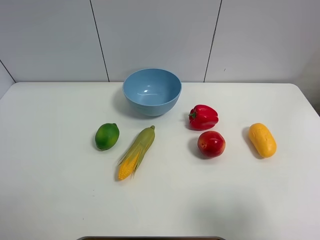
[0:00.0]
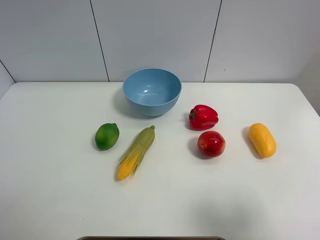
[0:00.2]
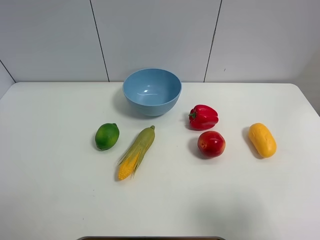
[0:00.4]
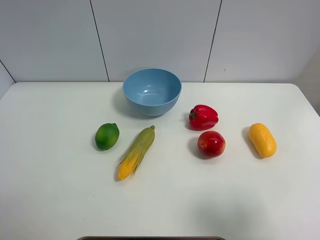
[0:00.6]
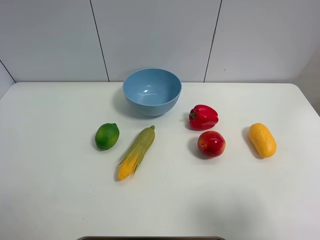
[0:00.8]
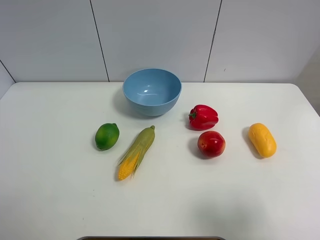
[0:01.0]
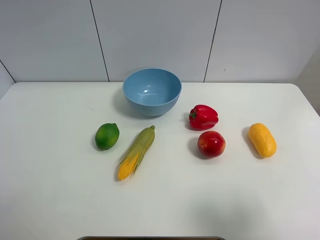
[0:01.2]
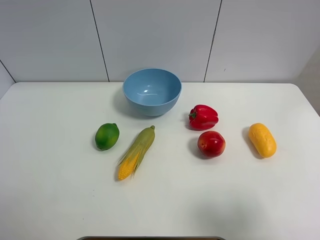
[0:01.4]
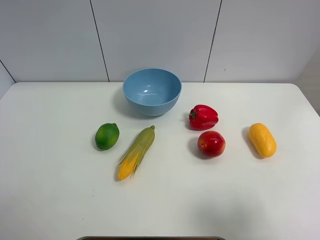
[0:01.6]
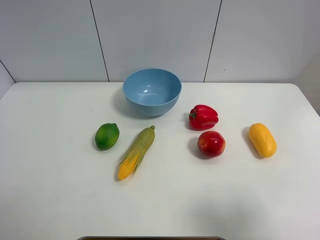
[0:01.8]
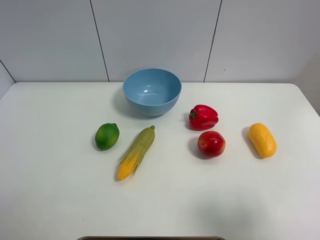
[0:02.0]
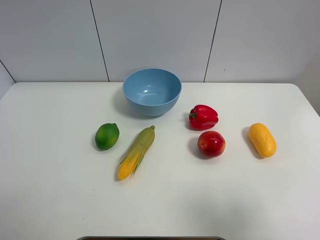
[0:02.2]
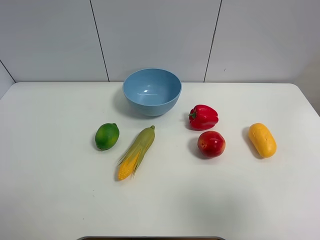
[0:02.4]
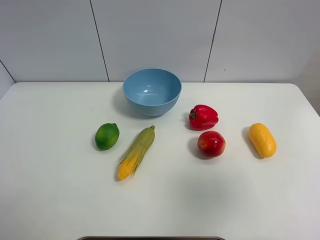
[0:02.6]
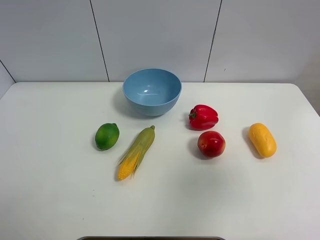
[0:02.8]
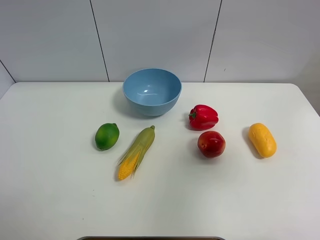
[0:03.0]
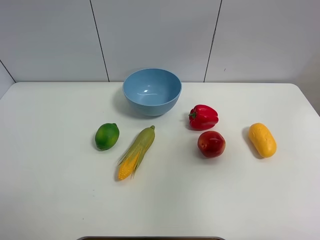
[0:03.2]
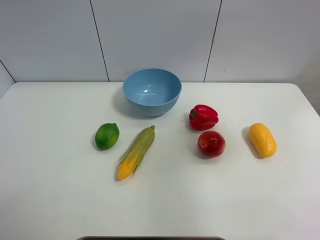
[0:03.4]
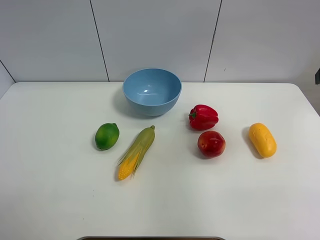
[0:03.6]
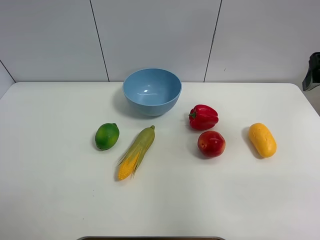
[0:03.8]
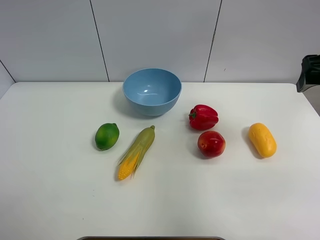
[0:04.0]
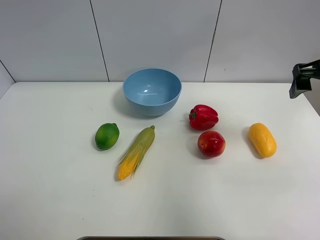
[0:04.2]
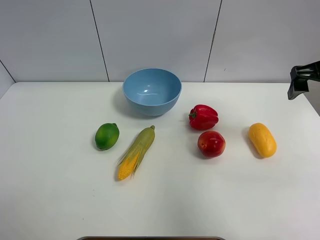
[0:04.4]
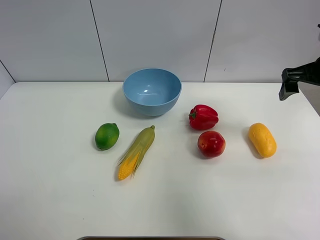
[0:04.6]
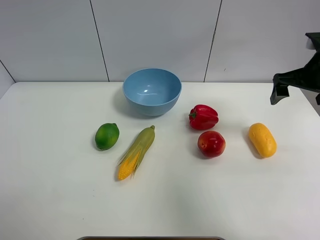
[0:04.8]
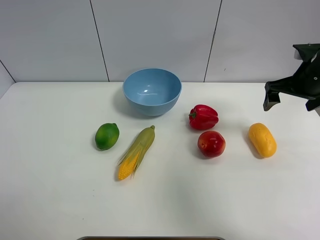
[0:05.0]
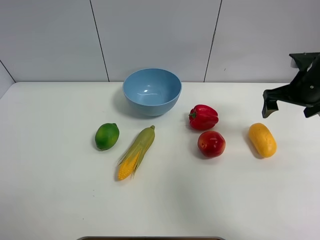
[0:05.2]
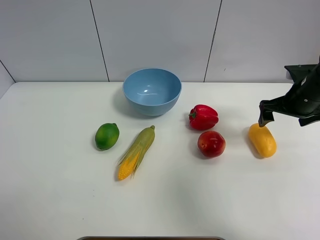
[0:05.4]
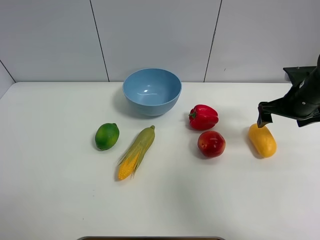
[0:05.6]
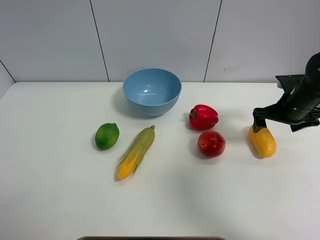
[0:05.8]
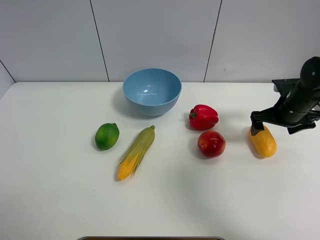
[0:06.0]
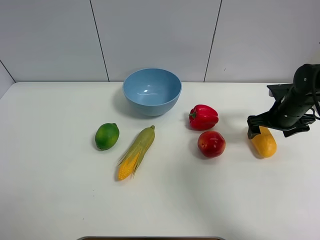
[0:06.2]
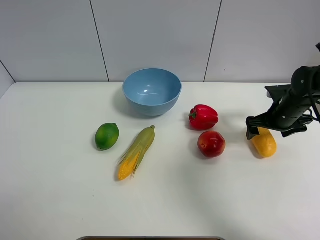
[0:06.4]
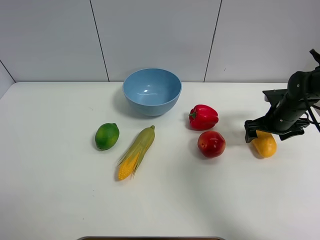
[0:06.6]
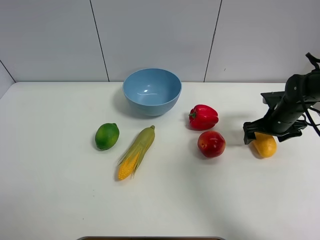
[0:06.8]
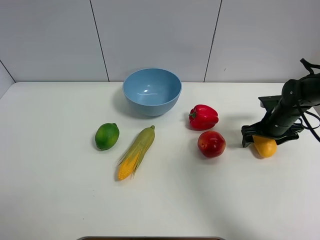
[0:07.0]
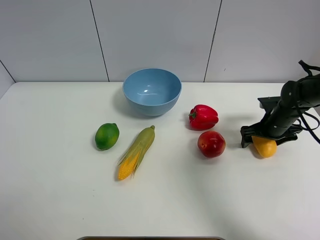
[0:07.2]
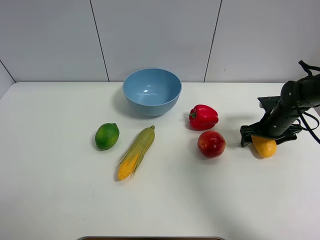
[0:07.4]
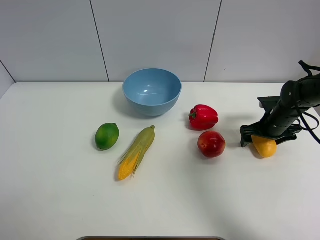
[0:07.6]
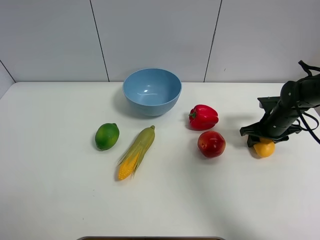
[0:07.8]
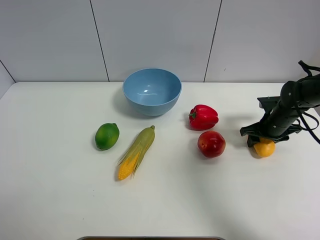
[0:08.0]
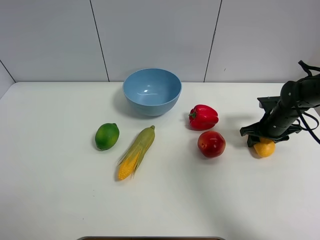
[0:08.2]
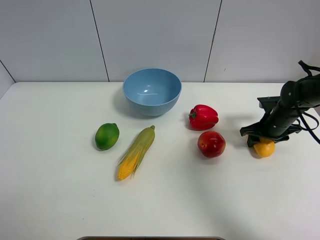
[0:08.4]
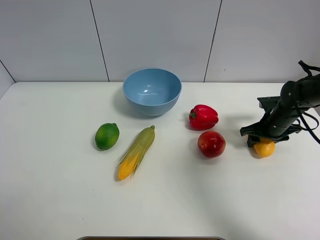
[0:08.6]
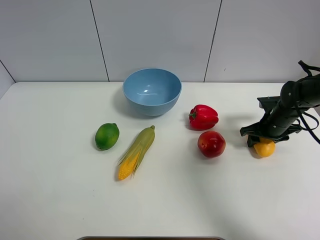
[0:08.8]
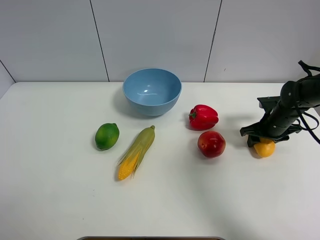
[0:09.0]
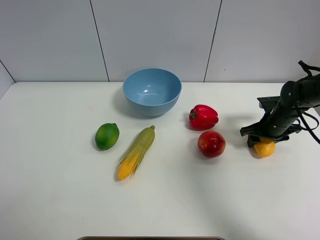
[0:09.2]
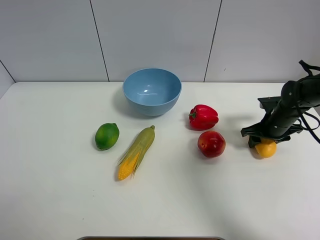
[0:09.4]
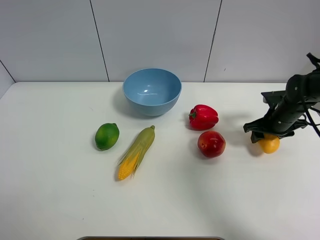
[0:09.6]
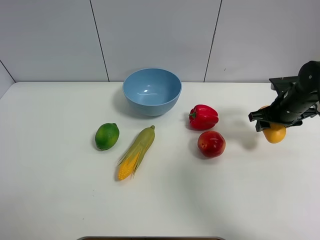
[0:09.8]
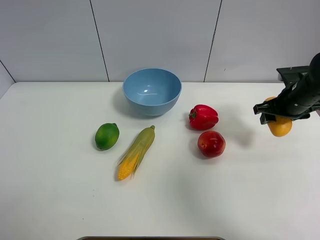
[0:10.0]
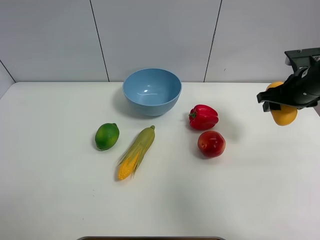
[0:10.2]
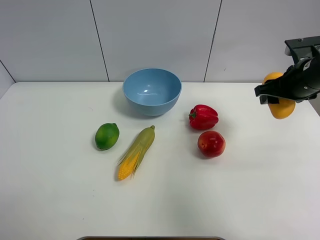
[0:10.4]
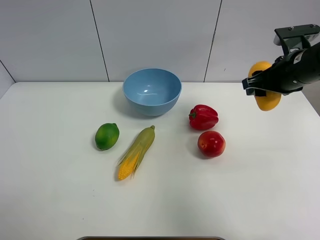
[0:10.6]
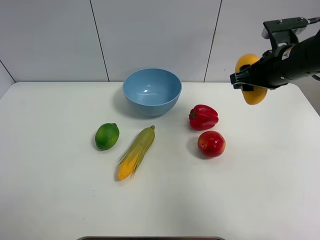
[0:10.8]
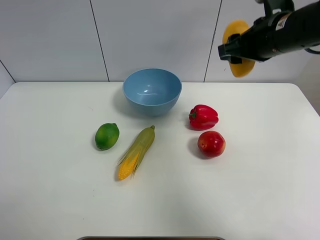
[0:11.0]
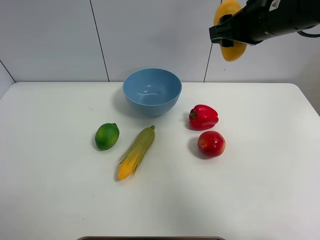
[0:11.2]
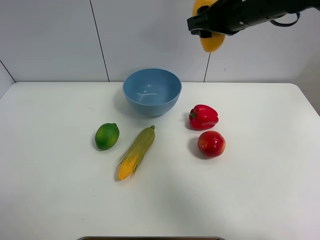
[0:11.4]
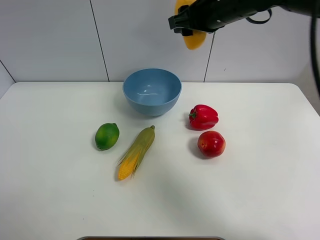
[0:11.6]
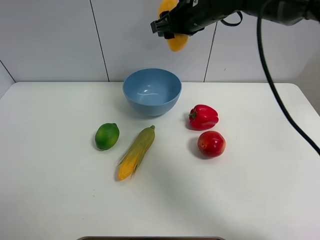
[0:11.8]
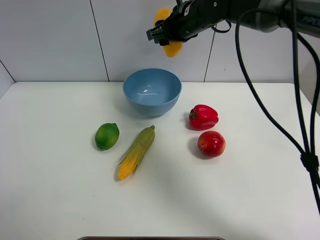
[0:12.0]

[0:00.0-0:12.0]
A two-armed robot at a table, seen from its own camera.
Task of the whole recording: Put the three fruits on the table into a bowl.
Step, 0:00.0 to 0:07.8: Grasp the mango with right gripper.
0:00.0 to 0:01.6: Both grippers stay put.
0:01.6 to 0:03.0: The right gripper heads forward and upward, covering approximately 20 cm.
0:03.0 to 0:04.4: The right gripper travels forward and downward by some 20 cm.
0:04.4 to 0:06.0: The right gripper is displaced downward by approximately 15 cm.
0:06.0 to 0:07.6: The right gripper travels downward by about 5 cm.
0:07.6 to 0:09.0: The right gripper closes.
0:09.0 to 0:10.4: The right gripper goes approximately 15 cm upward.
0:10.4 to 0:12.0: The right gripper travels to the left and forward by about 25 cm.

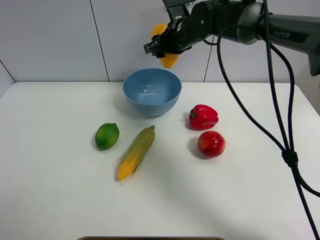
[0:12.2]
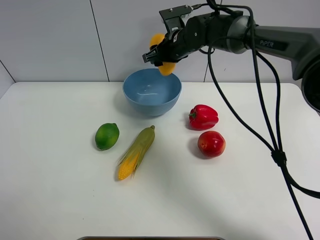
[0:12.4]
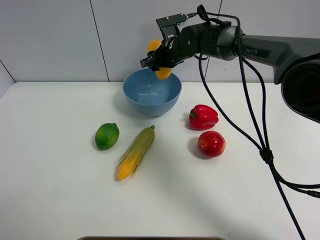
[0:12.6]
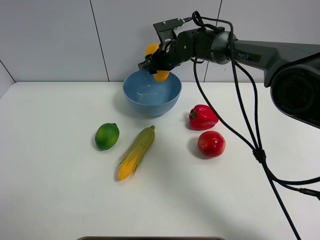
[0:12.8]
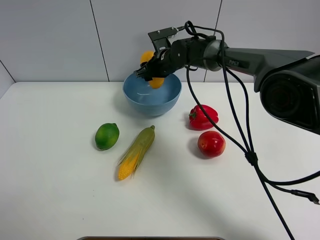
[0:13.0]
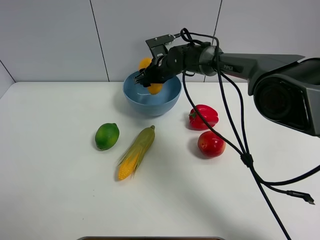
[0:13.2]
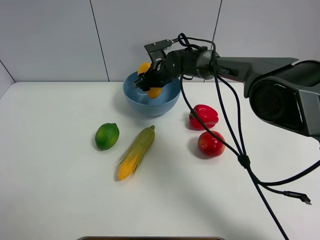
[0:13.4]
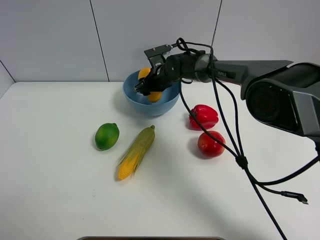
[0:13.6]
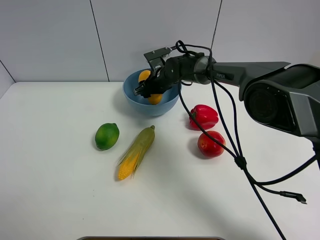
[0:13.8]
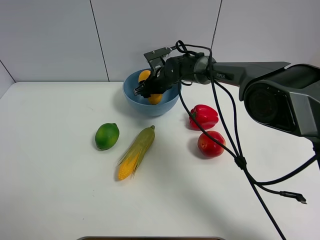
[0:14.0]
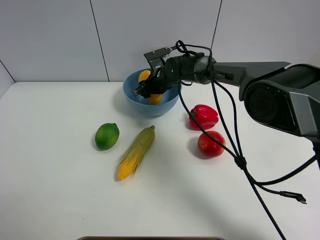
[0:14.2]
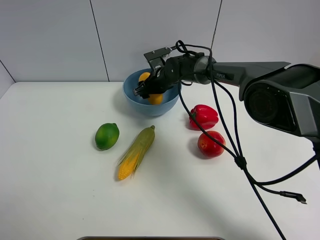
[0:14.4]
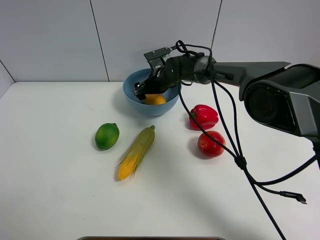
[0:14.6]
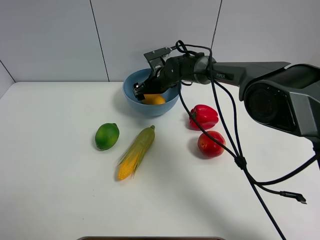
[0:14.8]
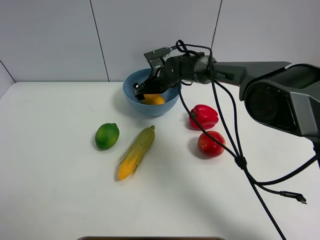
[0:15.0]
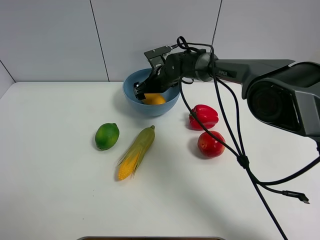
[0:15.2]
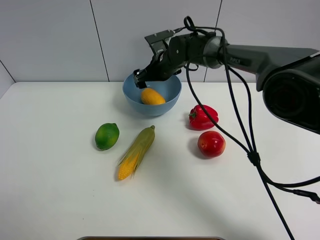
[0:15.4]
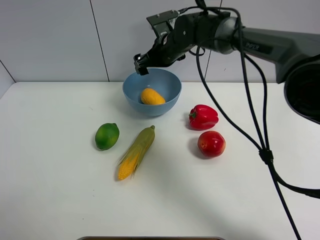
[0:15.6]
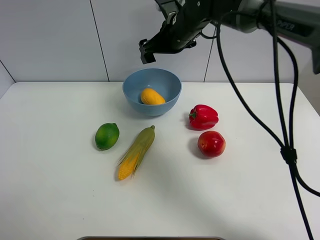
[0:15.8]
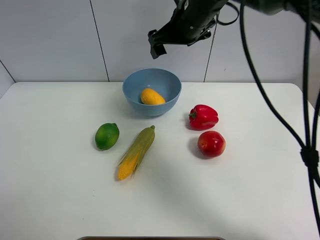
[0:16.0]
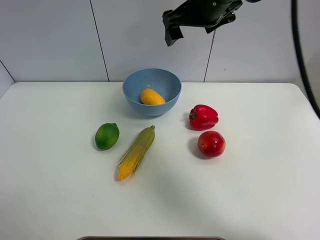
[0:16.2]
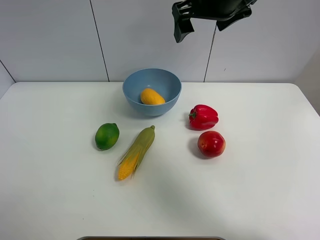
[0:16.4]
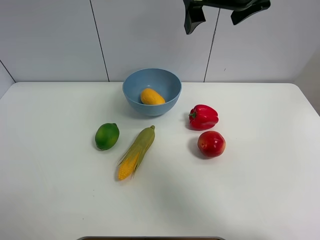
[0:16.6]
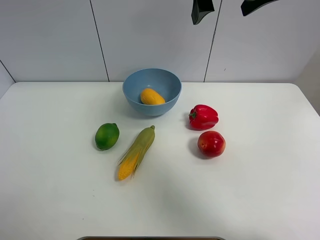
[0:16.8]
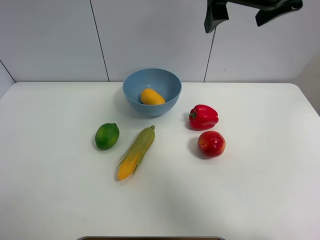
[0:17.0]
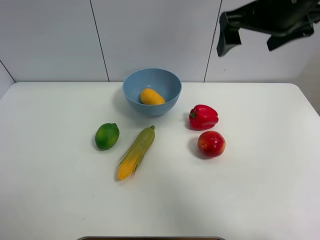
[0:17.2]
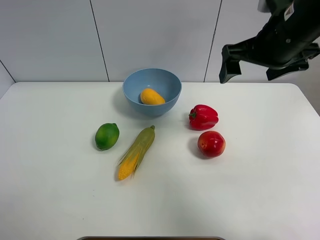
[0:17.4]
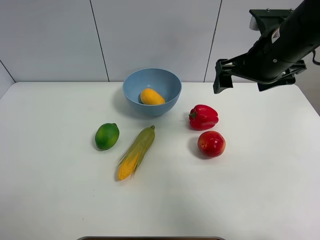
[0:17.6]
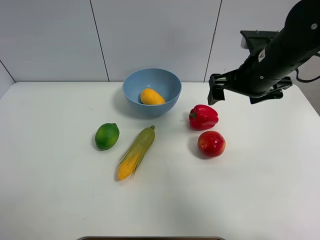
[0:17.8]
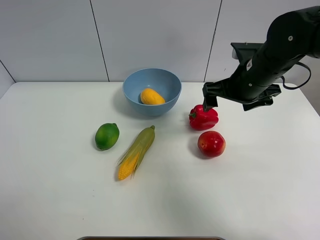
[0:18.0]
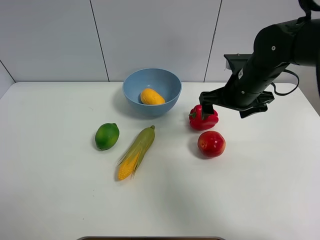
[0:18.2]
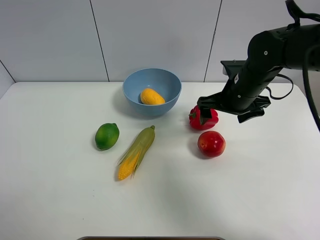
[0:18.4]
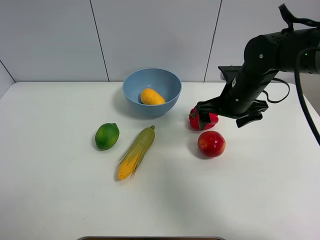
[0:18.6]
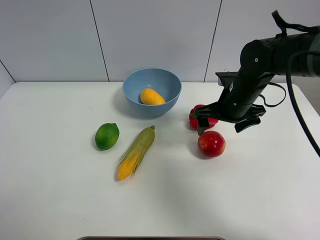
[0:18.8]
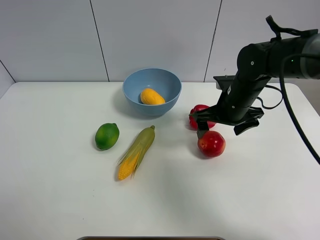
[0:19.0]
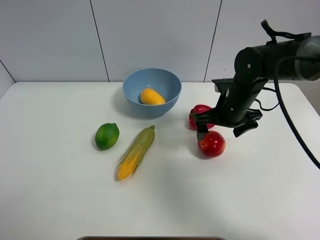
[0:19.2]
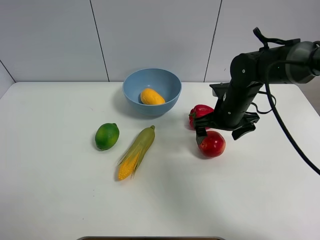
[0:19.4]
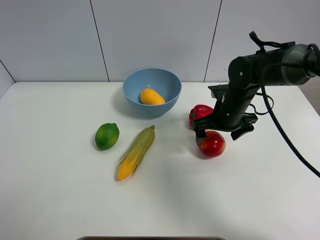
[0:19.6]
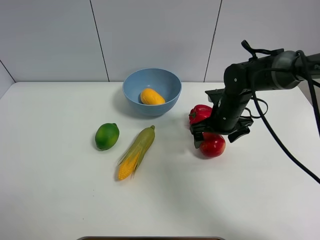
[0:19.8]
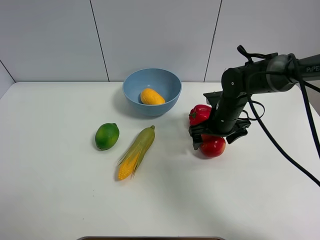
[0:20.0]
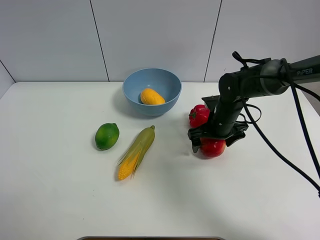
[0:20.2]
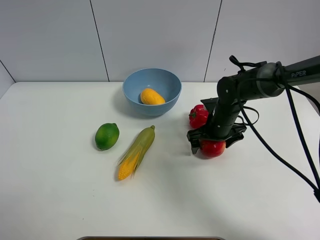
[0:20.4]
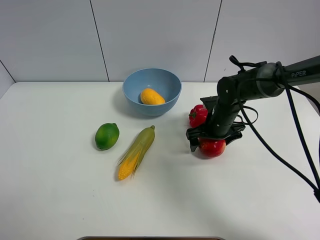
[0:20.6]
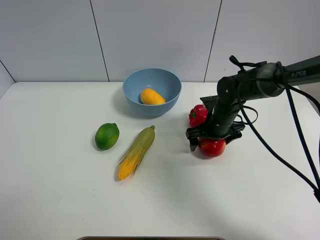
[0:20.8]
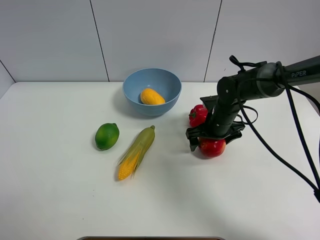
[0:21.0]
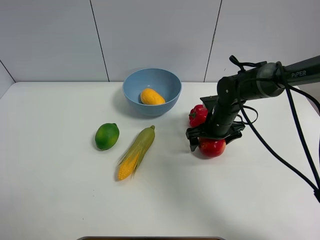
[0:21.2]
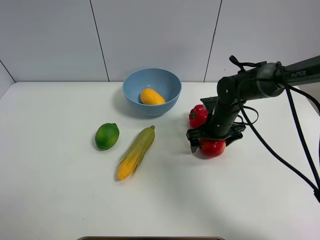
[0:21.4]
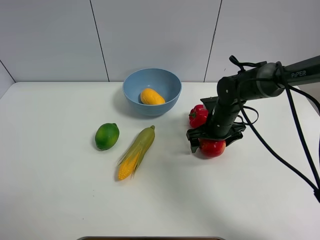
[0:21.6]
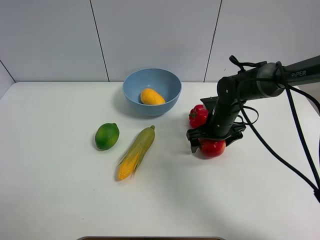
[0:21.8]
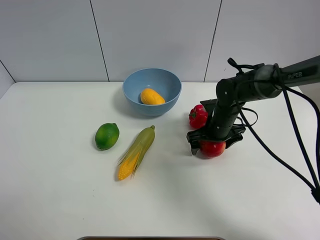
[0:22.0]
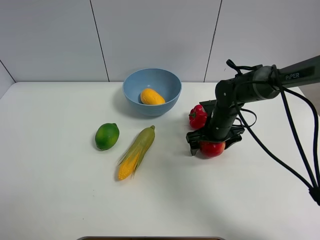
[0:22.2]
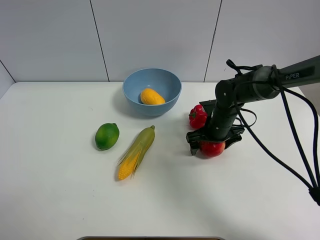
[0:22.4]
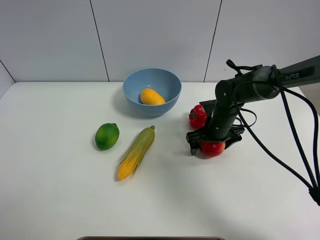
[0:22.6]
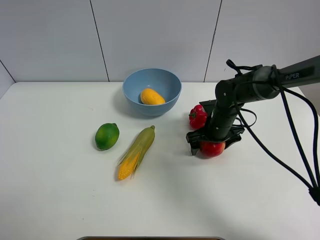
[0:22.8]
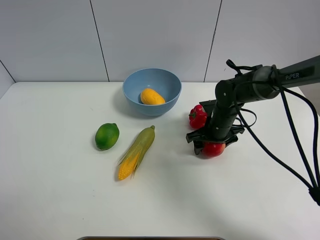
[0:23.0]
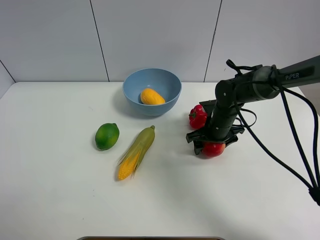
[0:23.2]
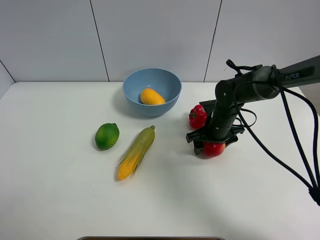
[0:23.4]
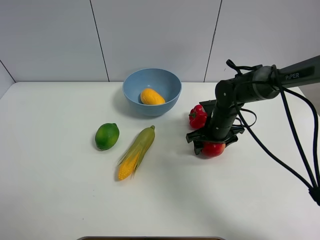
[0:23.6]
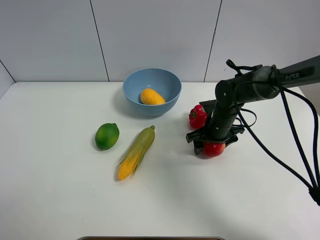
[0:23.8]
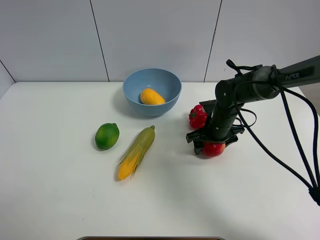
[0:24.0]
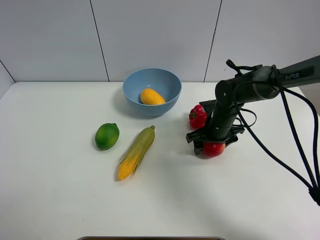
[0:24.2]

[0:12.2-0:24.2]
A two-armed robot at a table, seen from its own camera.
Task of the whole recording: Put the three fruits on the table into a bowl.
Step, 0:12.2 to 0:14.8: Place the mango in the blue bowl with right gripper.
Step, 0:15.0 to 0:23.0: Grasp the pomegranate with right gripper.
0:12.2 to 0:13.8: The right gripper shifts about 15 cm downward.
0:13.8 to 0:15.2: The right gripper opens.
0:15.2 to 0:16.6: The right gripper travels upward and backward by some 30 cm.
0:16.6 to 0:18.2: The right gripper moves downward, roughly 20 cm.
0:18.2 to 0:19.8: The right gripper goes some 10 cm downward.
0:19.8 to 0:21.2: The grippers stay close to where they were, moving slightly.
0:21.2 to 0:22.6: The two grippers keep their place.
